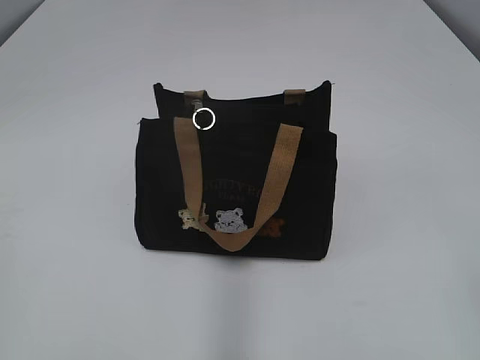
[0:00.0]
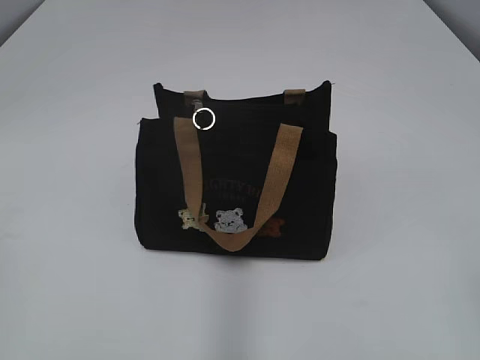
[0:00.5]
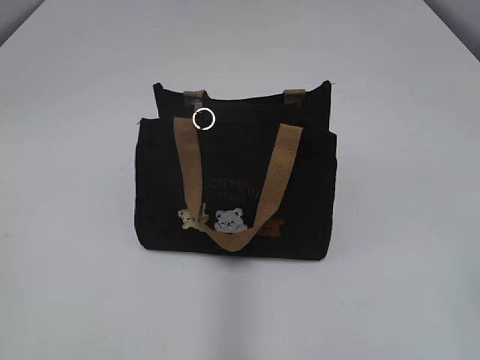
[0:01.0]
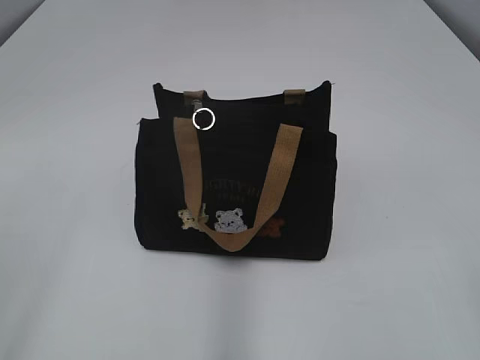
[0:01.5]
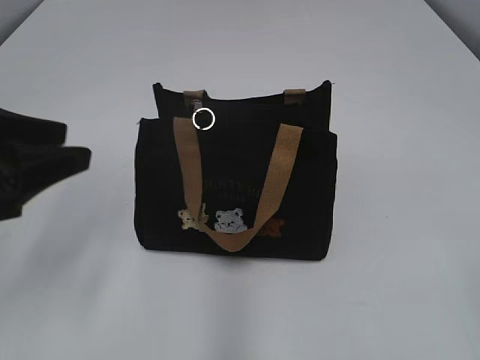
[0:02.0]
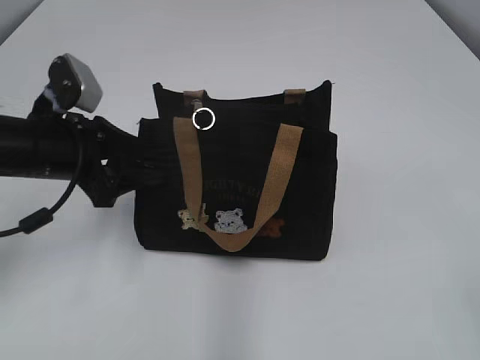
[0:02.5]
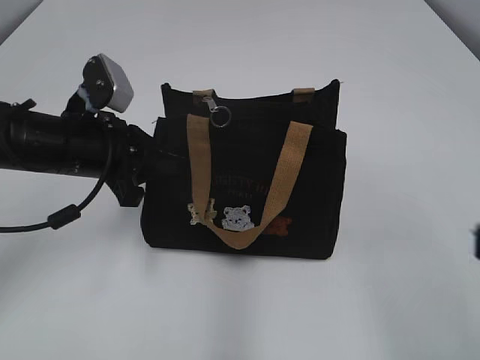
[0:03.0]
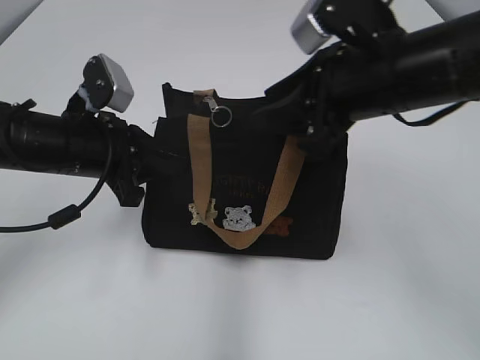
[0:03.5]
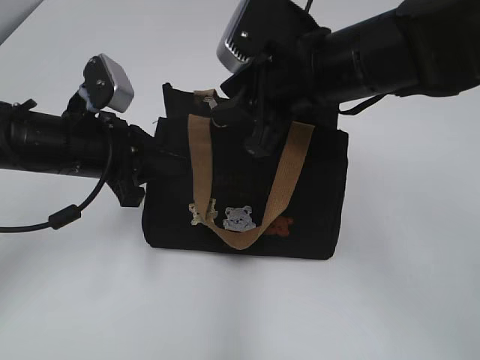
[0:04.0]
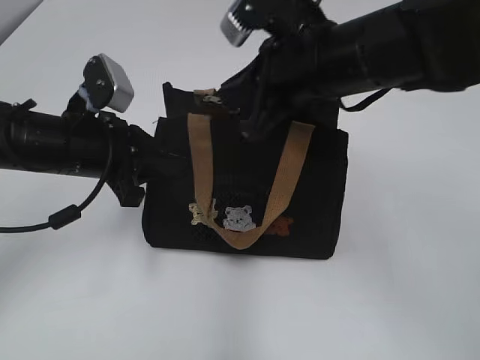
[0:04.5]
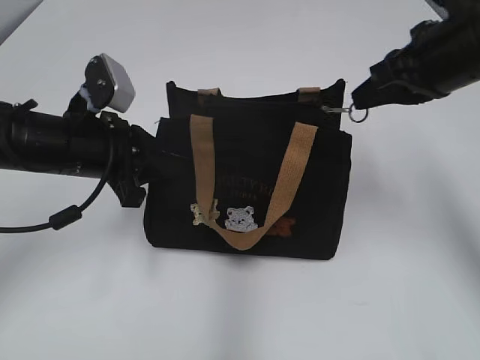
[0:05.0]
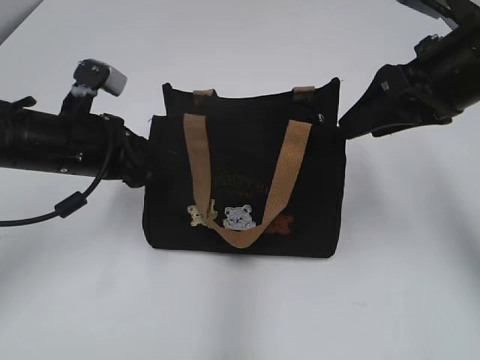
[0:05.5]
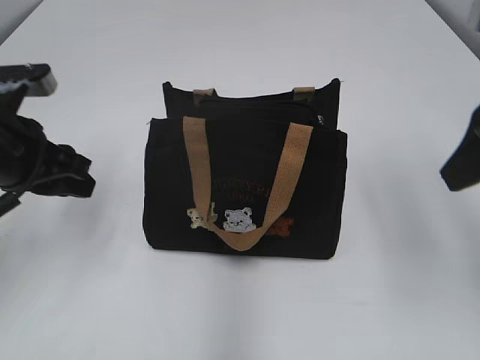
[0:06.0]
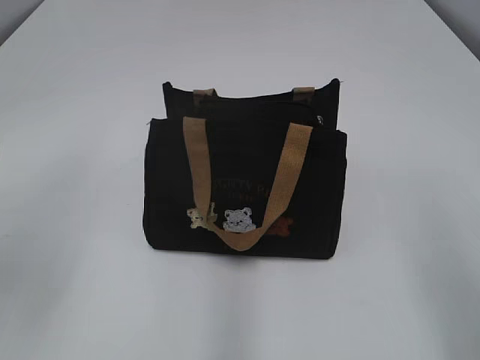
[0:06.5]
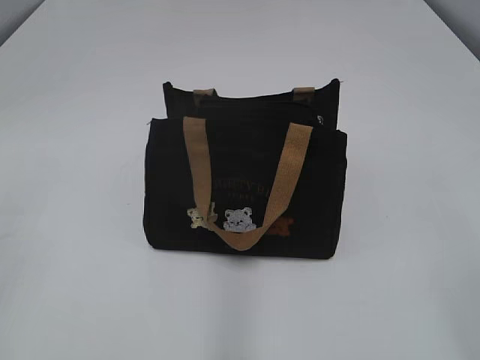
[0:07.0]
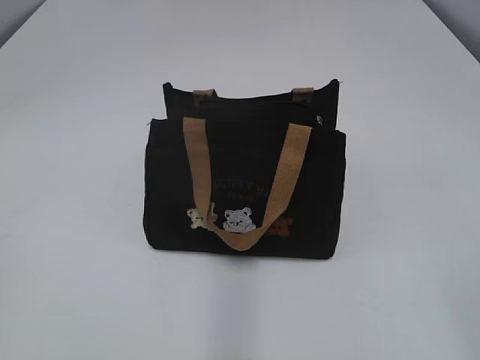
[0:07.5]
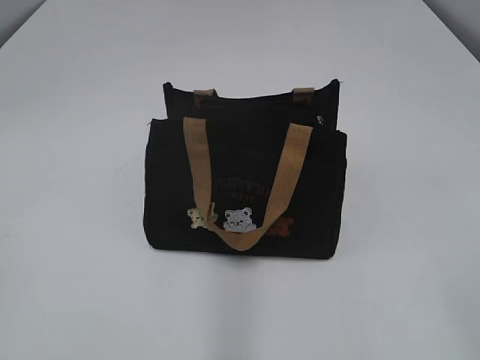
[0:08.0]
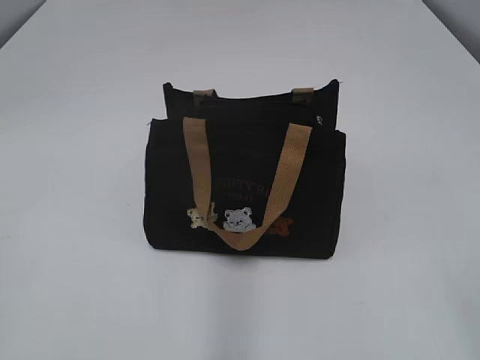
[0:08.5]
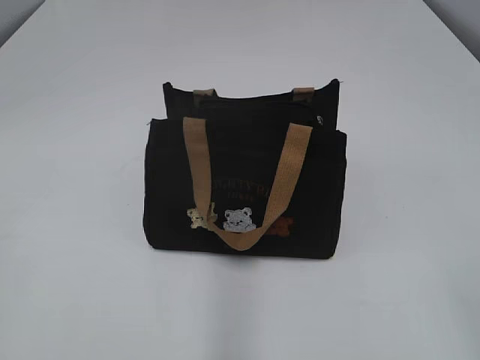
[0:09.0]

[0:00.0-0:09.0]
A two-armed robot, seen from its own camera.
Step, 0:00.0 to 0:05.0: Pull open the zipper with your right hand.
0:02.0 to 0:04.5: The right gripper moves forward and to the left, about 40 cm, and closes. The left gripper travels forward, downward and to the right by roughly 15 cm, and closes up.
0:04.5 to 0:07.0: The right gripper goes about 35 cm backward and to the right, and opens its fingers, while the left gripper moves backward, upward and to the left, approximately 30 cm, and opens.

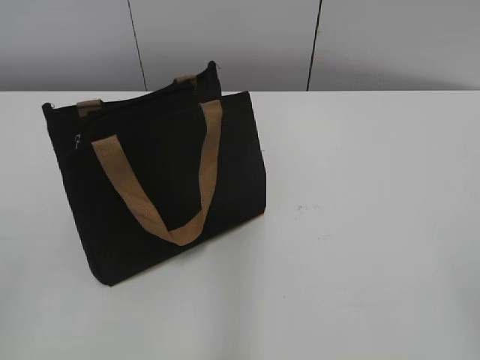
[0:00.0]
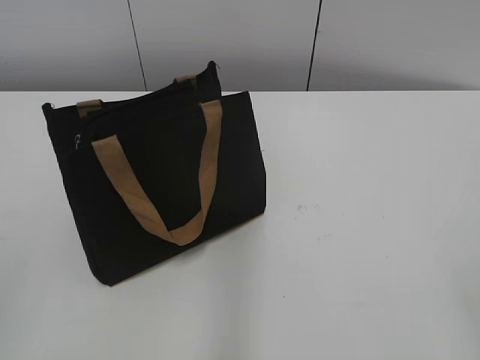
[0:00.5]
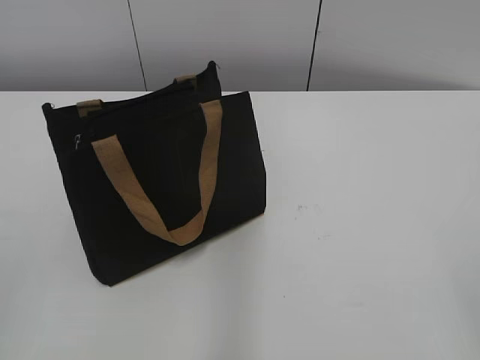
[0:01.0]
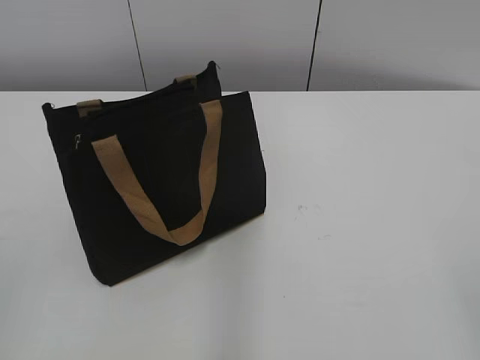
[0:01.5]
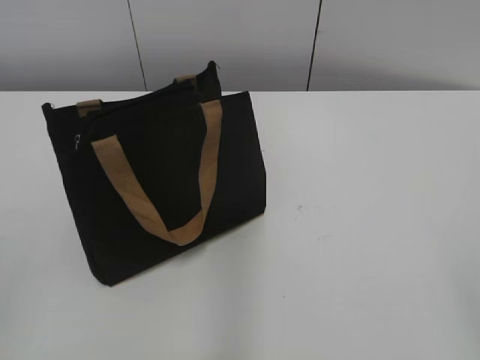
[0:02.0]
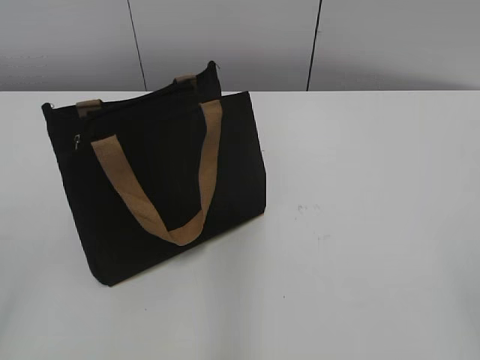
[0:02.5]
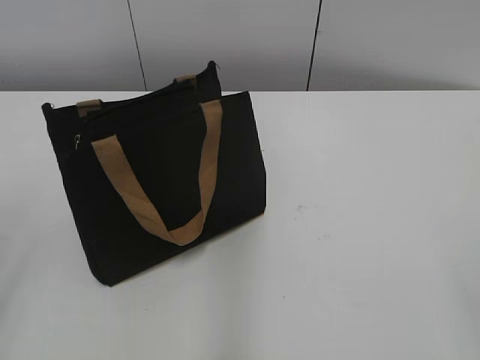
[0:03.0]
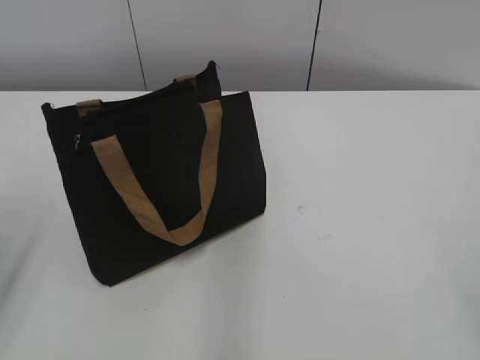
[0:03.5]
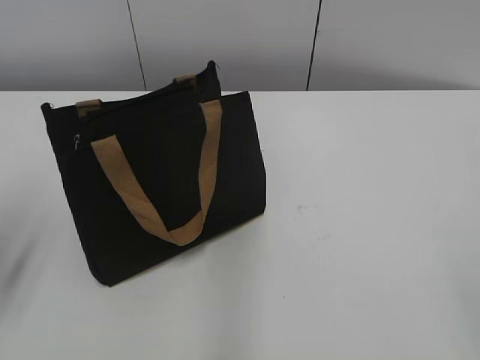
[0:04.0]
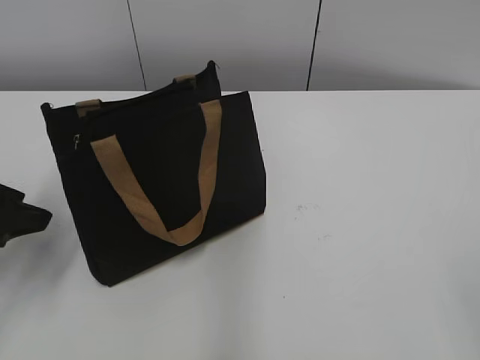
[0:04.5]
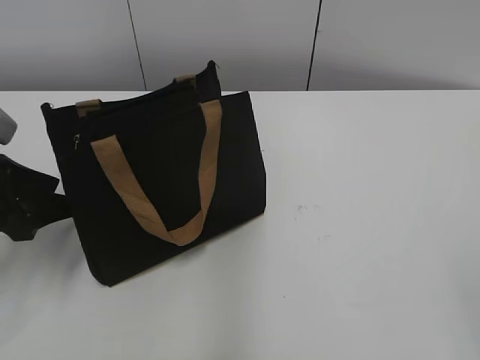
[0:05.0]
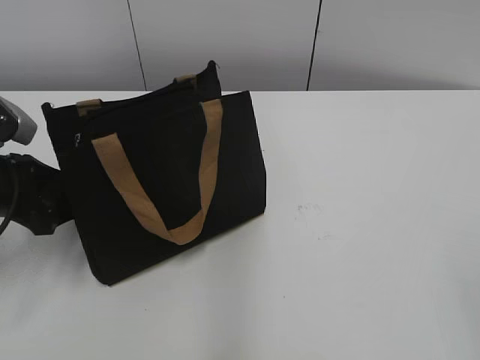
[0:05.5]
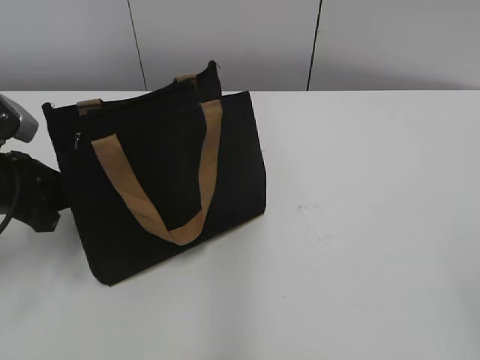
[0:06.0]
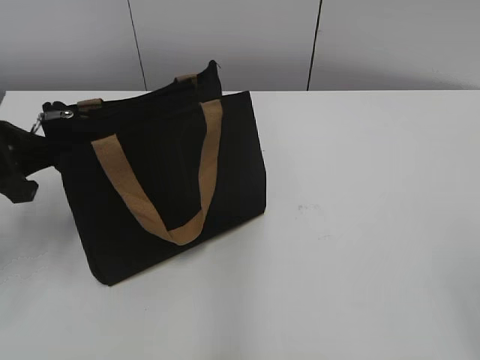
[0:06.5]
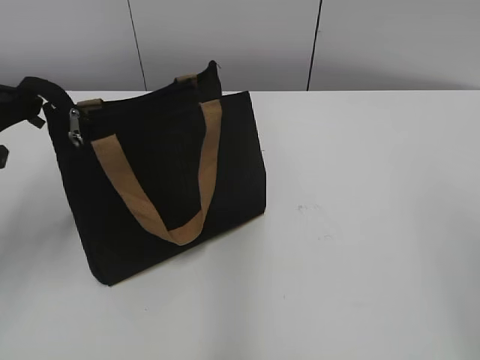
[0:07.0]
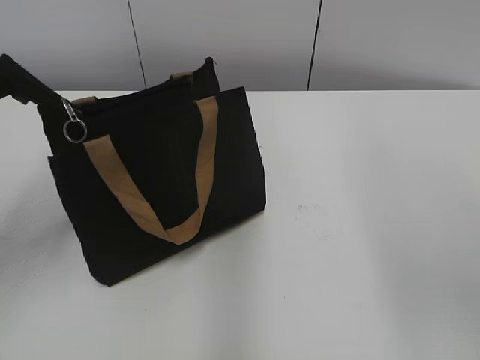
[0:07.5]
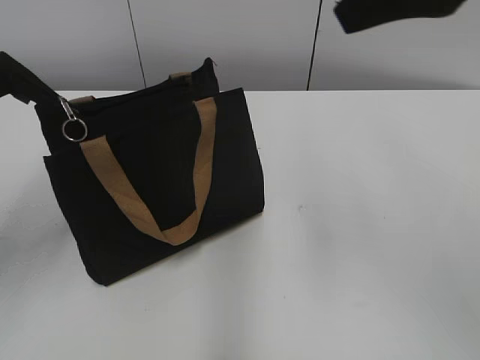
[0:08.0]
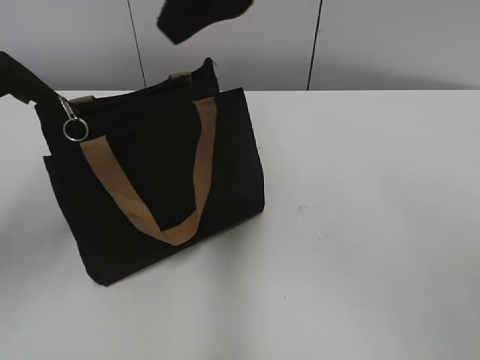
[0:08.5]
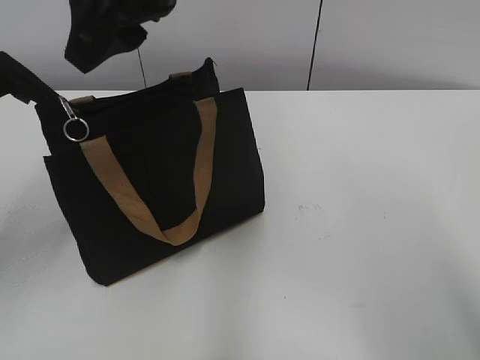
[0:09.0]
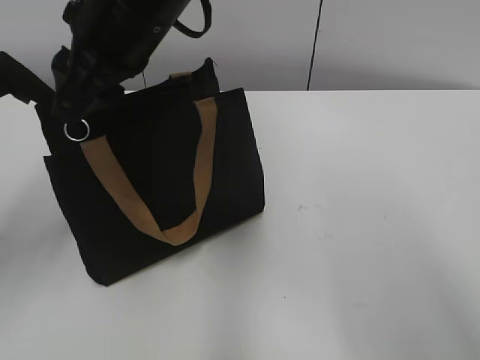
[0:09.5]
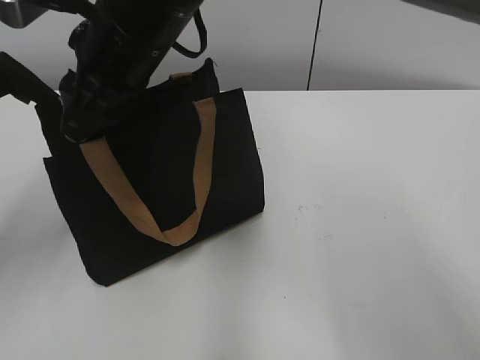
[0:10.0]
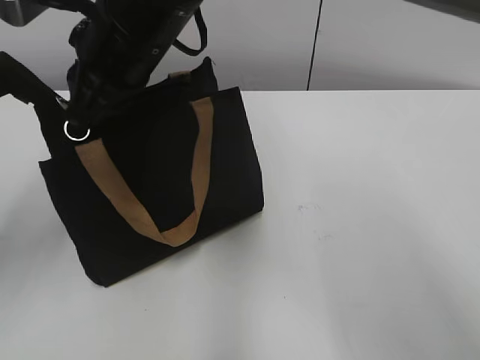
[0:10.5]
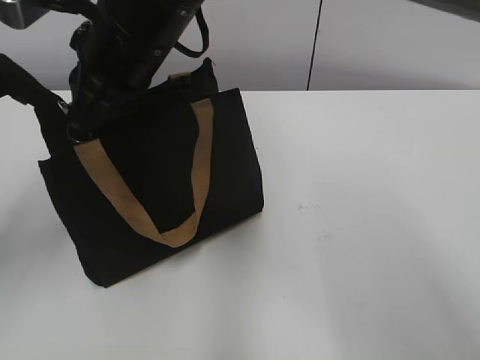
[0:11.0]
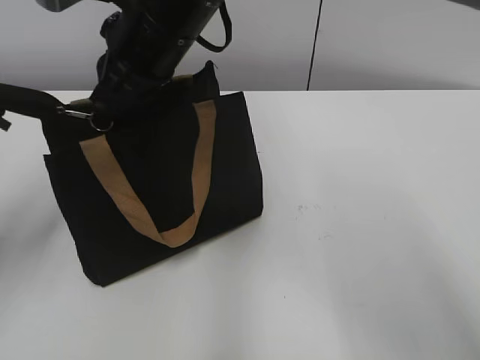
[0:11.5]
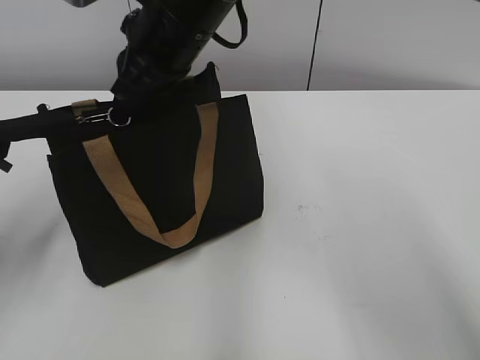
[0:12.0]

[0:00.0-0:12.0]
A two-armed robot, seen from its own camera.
0:02.0 to 0:04.0: The left gripper shifts some 20 cm forward.
0:04.0 to 0:06.0: The left gripper travels forward and downward by roughly 10 cm, and closes its fingers.
0:06.0 to 0:08.0: The right gripper shifts about 30 cm forward, upward and to the left. Meanwhile the left gripper is displaced upward by about 15 cm.
0:08.0 to 0:10.0: The right gripper travels to the left, downward and forward by about 30 cm.
0:10.0 to 0:12.0: The right gripper closes up. Meanwhile the left gripper is displaced downward by roughly 5 cm.

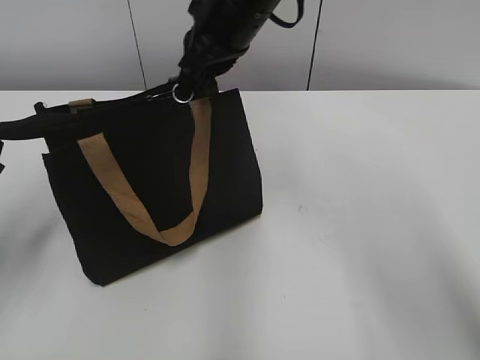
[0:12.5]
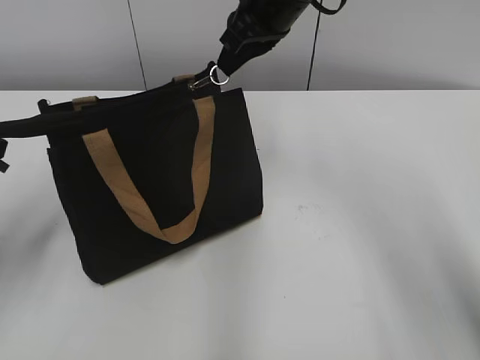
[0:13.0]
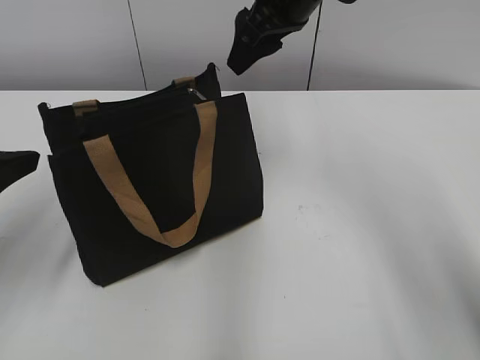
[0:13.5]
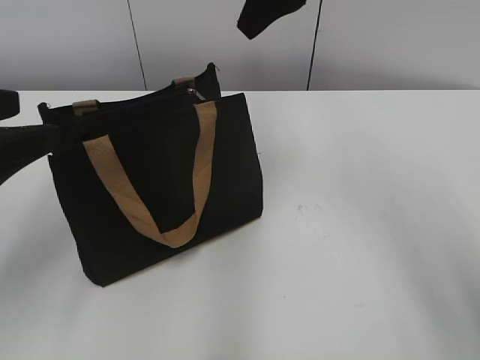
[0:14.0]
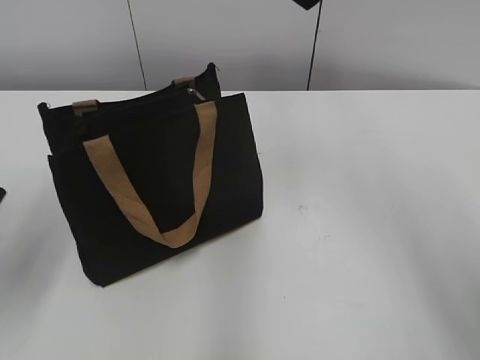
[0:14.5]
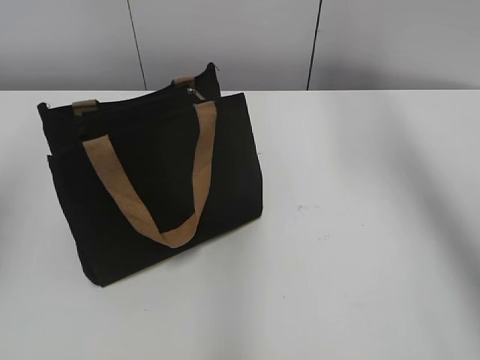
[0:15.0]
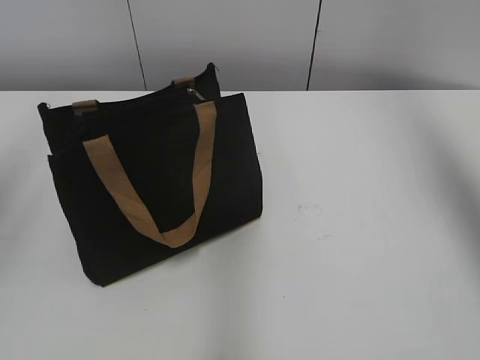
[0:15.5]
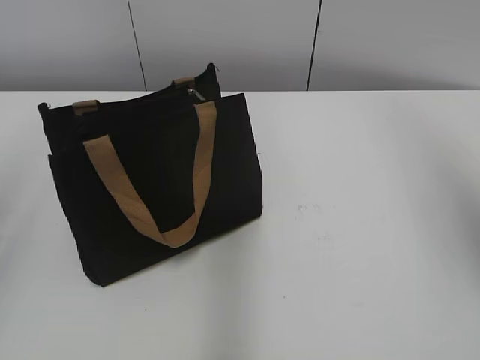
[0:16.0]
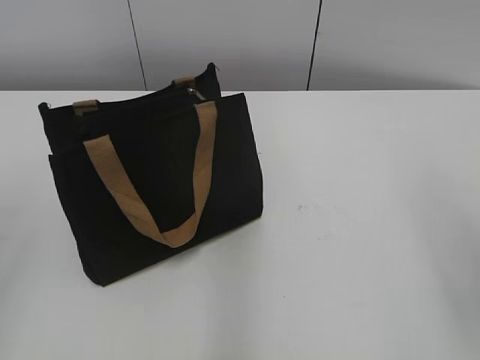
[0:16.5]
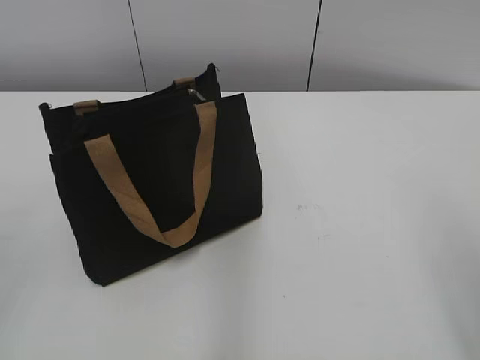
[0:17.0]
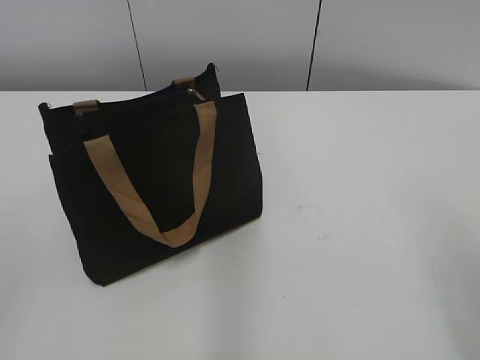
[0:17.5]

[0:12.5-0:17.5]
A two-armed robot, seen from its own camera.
0:12.5 to 0:15.0: The right gripper is displaced to the right and upward by approximately 25 cm, and opens up. Meanwhile the left gripper is displaced upward by about 10 cm, and opens.
0:15.0 to 0:17.5: The left gripper shifts about 20 cm backward. The right gripper travels backward and downward by about 30 cm.
